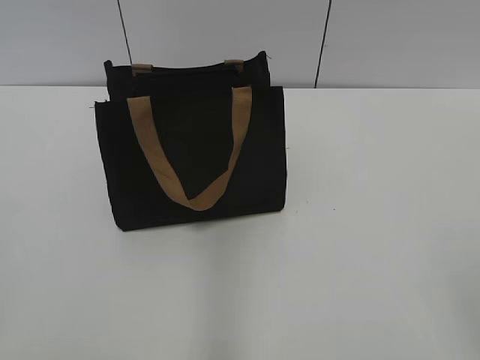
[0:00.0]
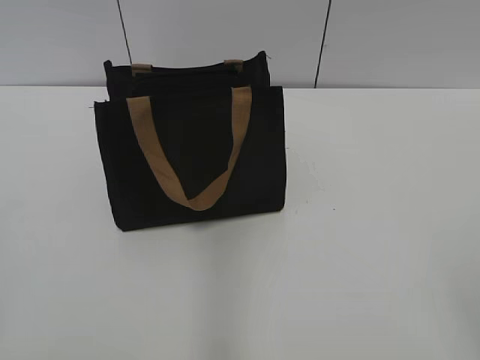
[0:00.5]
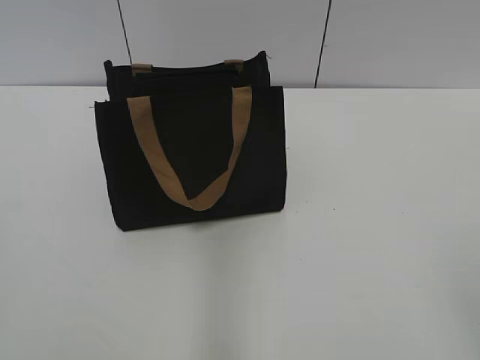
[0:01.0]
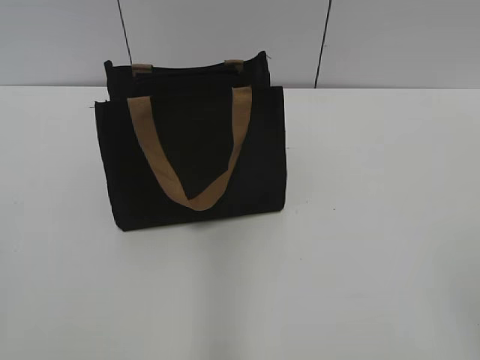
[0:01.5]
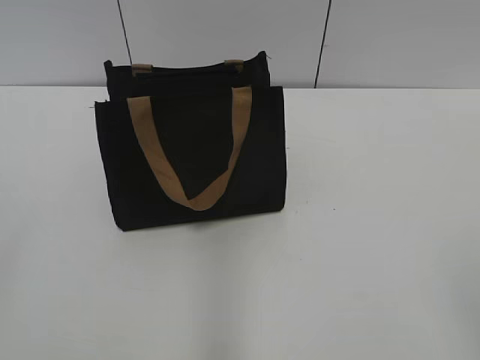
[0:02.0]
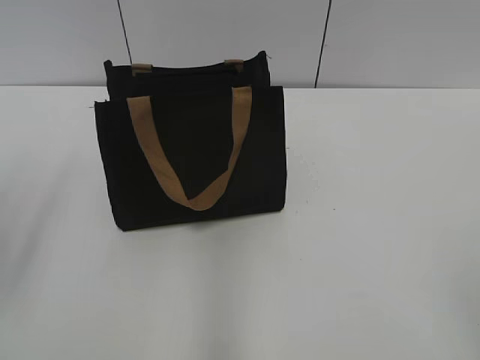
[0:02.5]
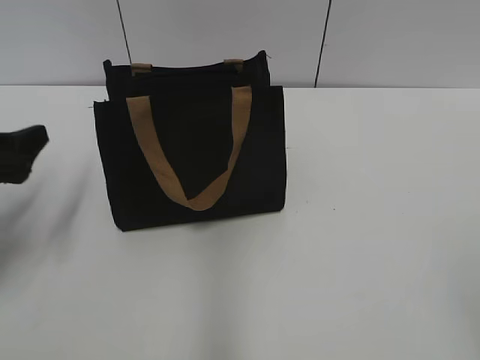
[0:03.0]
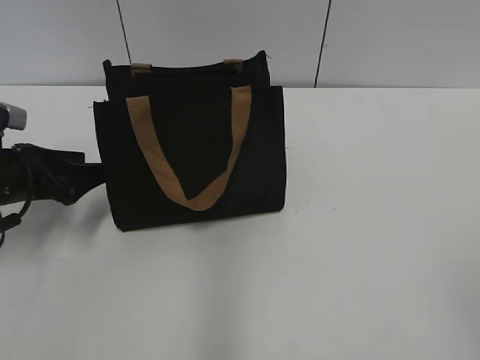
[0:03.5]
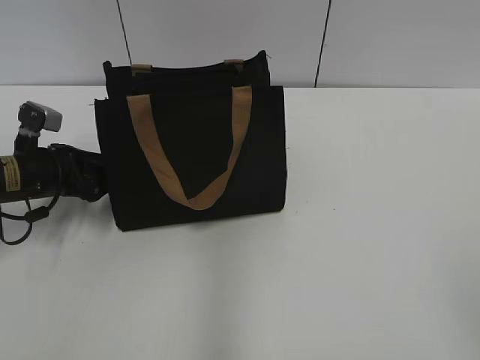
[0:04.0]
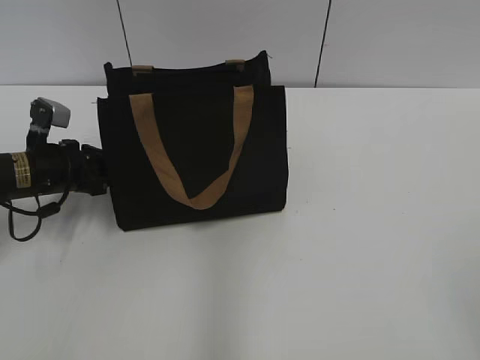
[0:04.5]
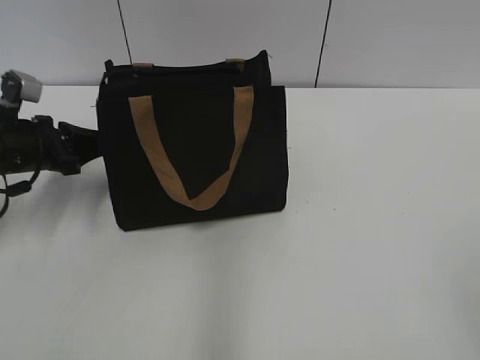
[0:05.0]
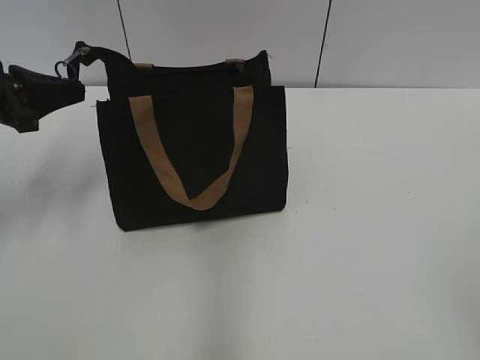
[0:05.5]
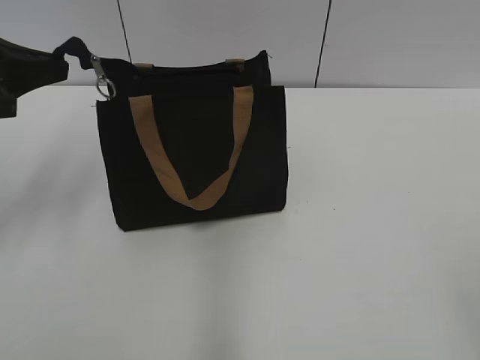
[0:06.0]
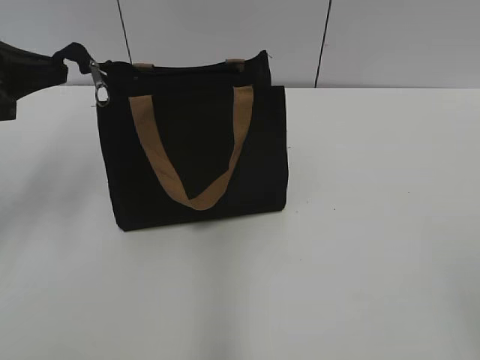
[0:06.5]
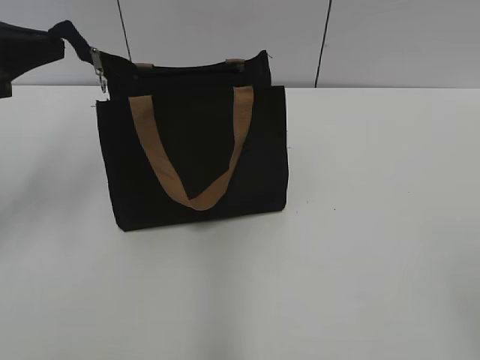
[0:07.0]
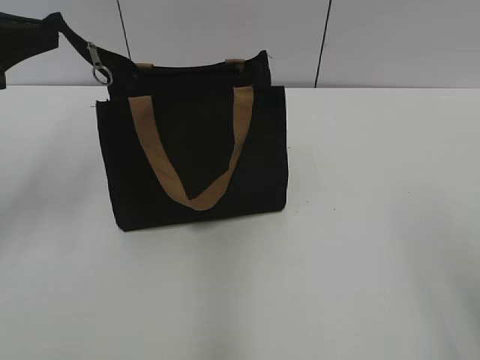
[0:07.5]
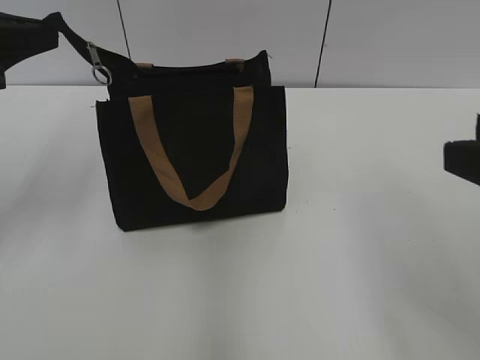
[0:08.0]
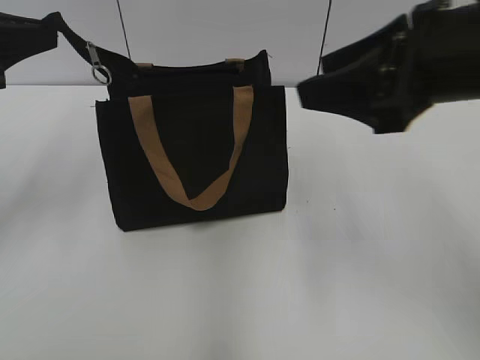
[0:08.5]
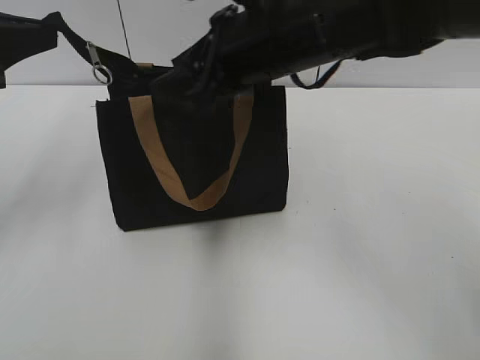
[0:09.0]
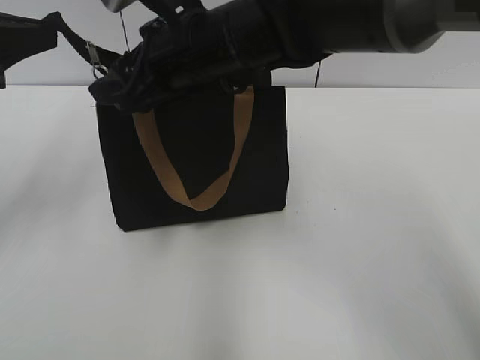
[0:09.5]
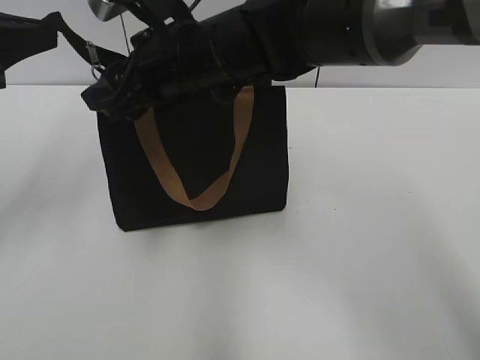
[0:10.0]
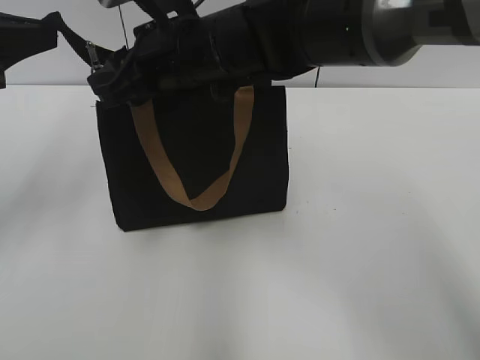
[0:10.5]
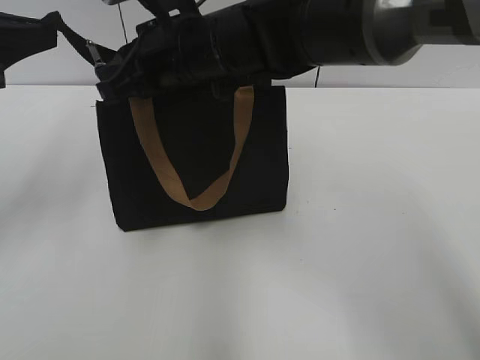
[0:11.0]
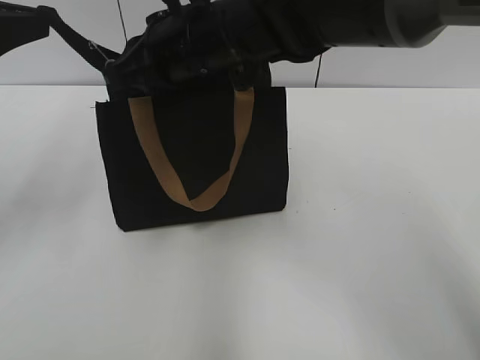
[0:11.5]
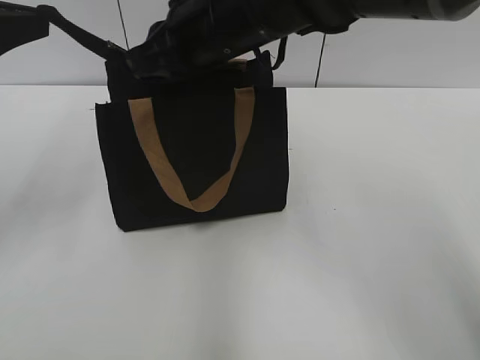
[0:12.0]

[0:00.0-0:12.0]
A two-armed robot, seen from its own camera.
0:02.0 to 0:04.0: The left gripper goes roughly 40 cm forward and downward.
0:04.0 to 0:06.0: The left gripper travels upward by some 15 cm, and closes.
0:06.0 to 0:08.0: The right gripper is displaced forward by some 15 cm.
0:08.0 to 0:10.0: The right gripper heads to the left and forward, covering some 35 cm.
0:10.0 to 0:12.0: The right gripper closes.

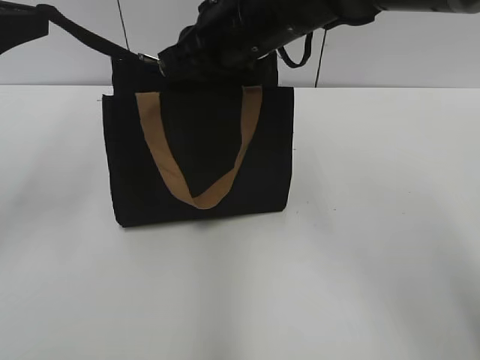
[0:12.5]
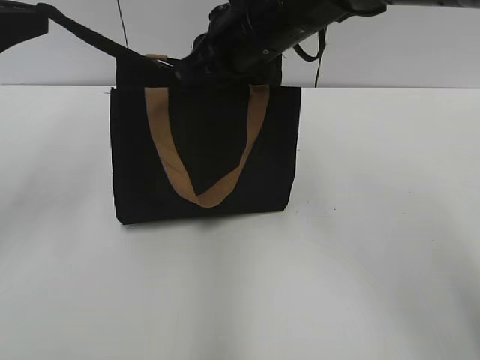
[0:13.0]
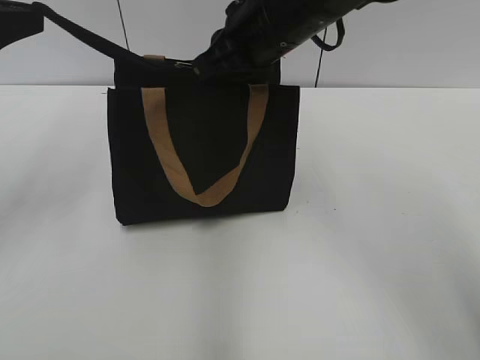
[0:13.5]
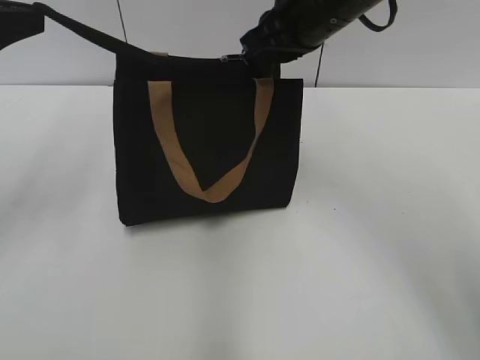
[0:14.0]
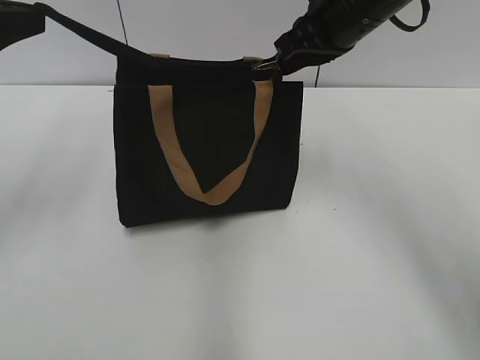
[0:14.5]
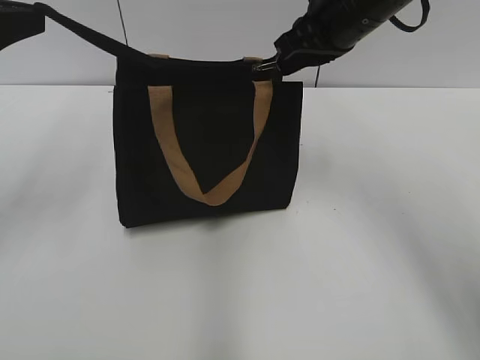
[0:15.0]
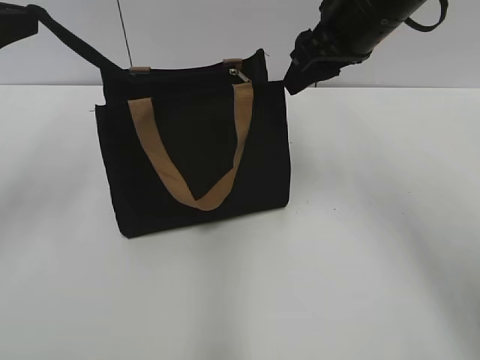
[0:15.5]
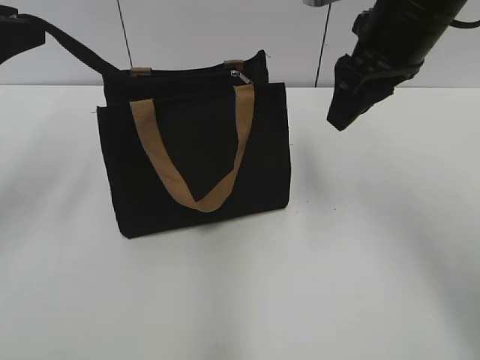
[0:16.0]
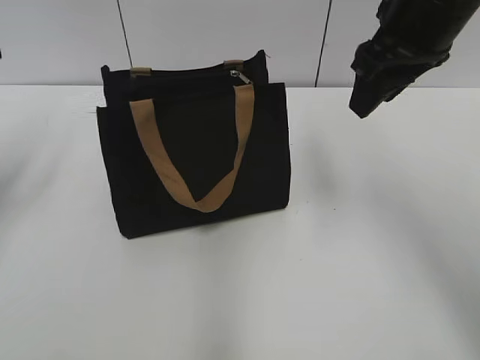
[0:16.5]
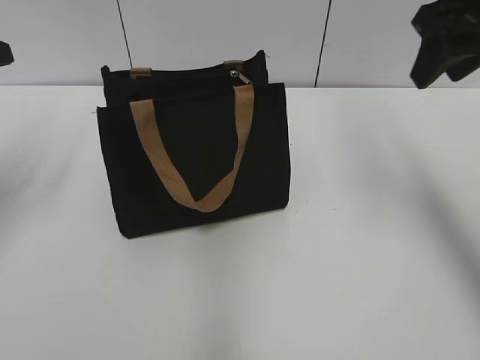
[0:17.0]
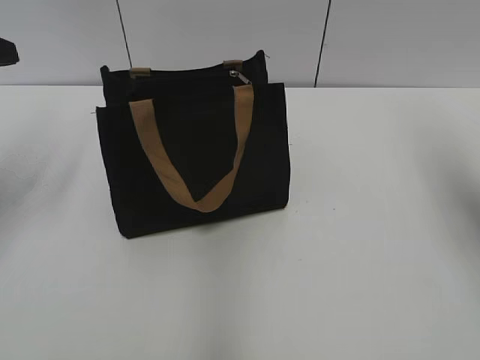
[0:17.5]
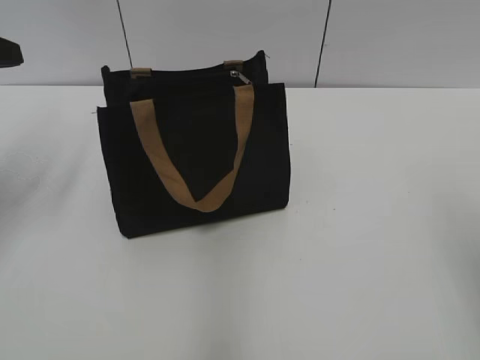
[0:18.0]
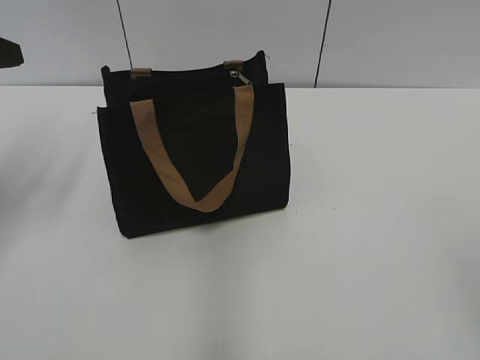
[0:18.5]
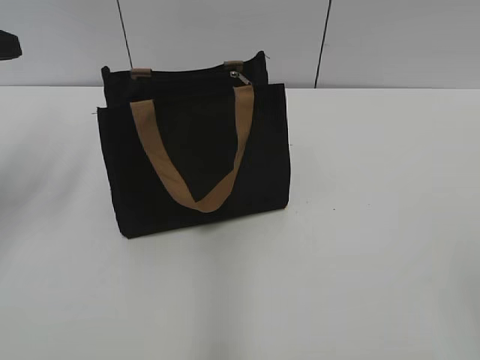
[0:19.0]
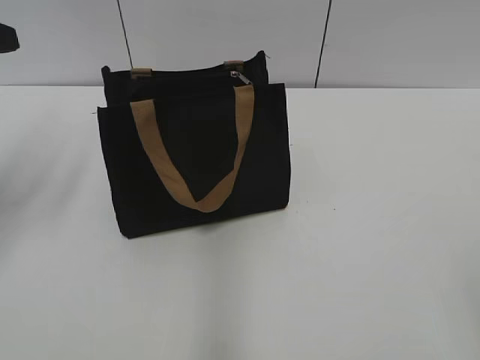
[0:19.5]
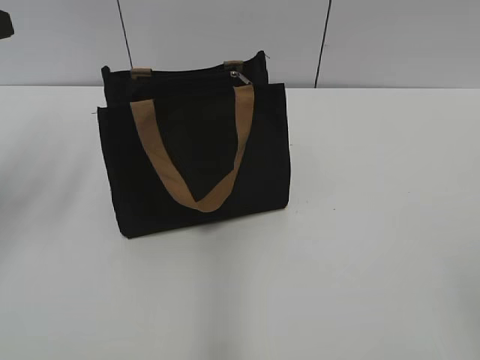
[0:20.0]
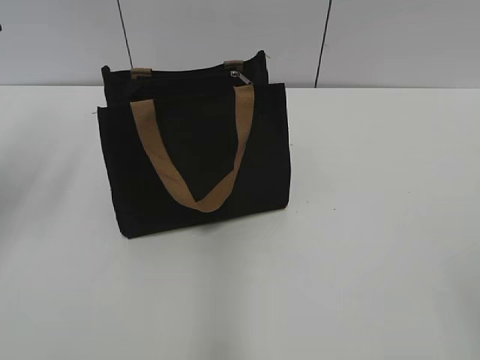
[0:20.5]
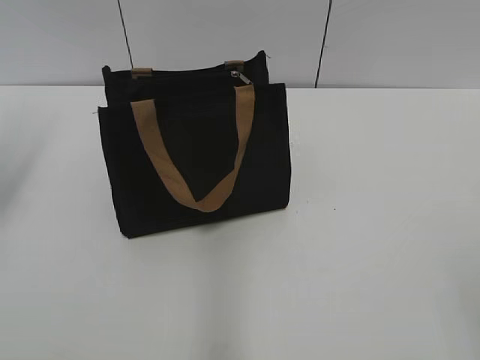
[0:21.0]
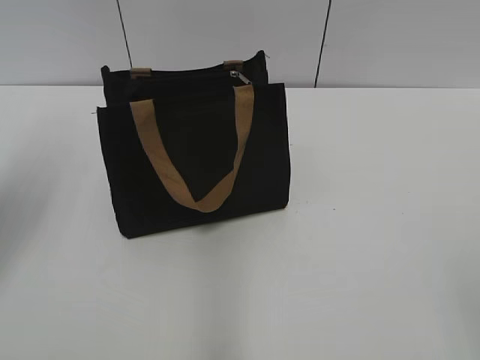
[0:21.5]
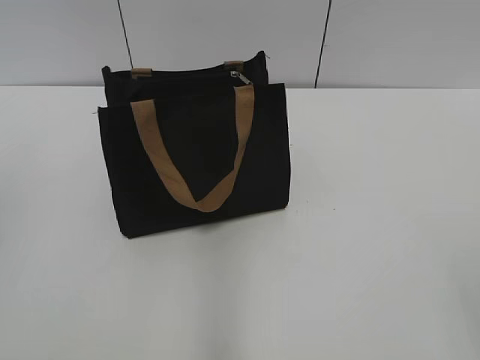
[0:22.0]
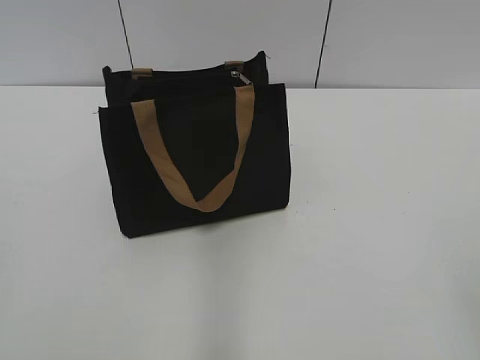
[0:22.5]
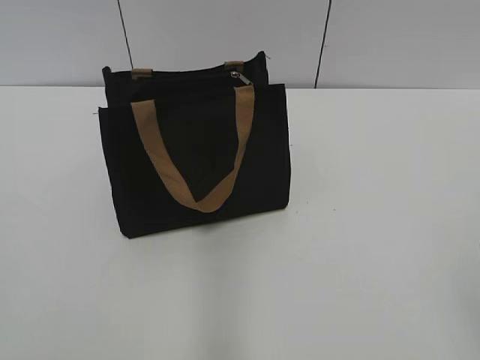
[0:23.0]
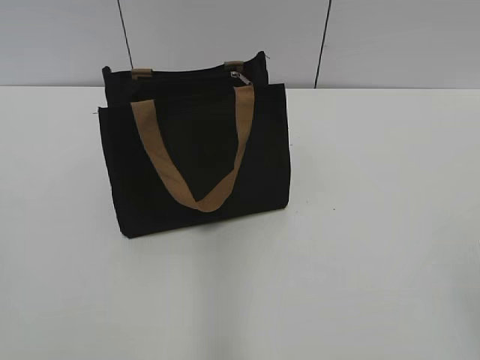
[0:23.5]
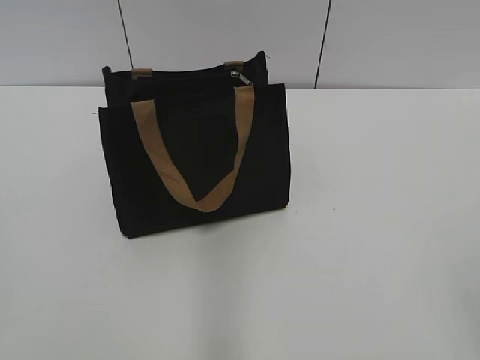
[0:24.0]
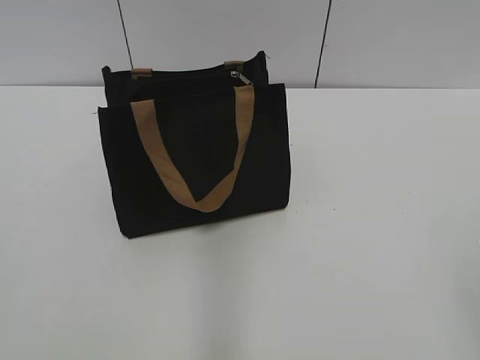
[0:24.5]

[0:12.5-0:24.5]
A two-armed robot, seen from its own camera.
Step, 0:12.5 to 0:15.0: Zip up the bag with your right hand.
Step, 0:15.5 to 0:16.5: Grab the zipper with your left hand.
0:12.5 to 0:14.5: The right gripper travels to the right by about 10 cm.
0:14.5 to 0:16.5: The left gripper opens its fingers, while the right gripper goes about 5 cm backward, and opens up.
0:16.5 to 0:18.5: The right gripper travels backward and to the right by approximately 35 cm.
0:20.5 to 0:22.5: The left gripper moves backward, about 25 cm.

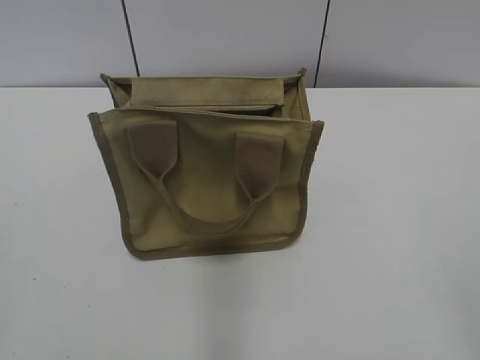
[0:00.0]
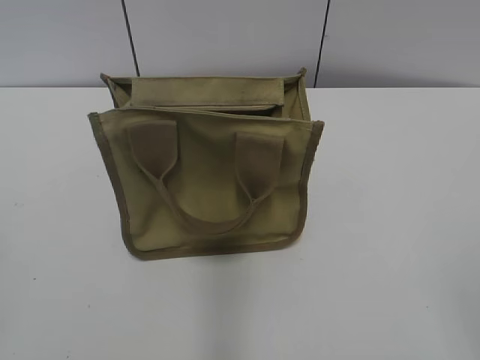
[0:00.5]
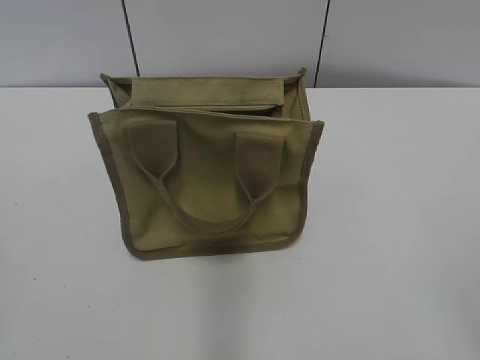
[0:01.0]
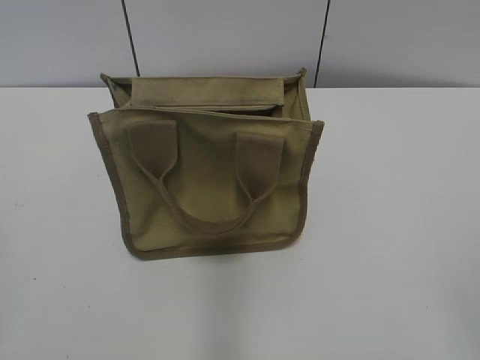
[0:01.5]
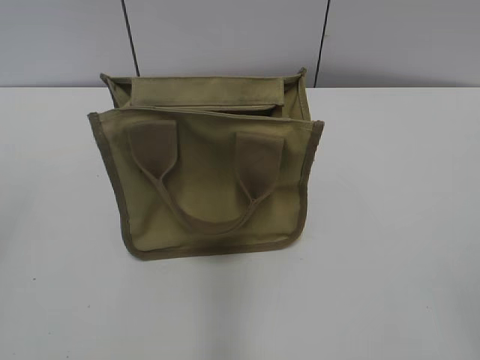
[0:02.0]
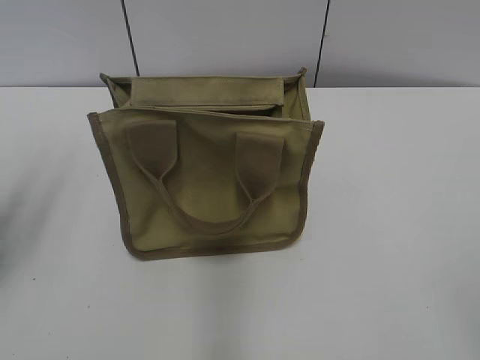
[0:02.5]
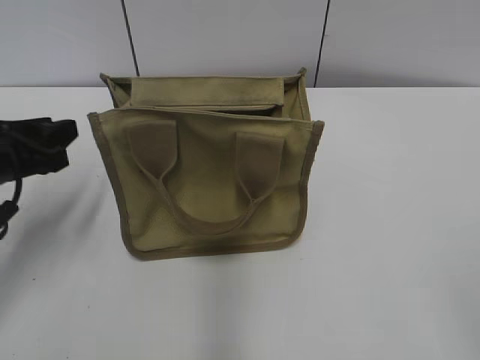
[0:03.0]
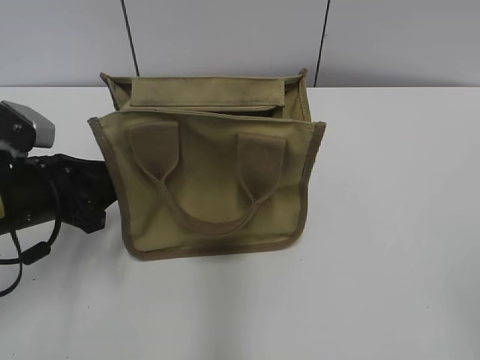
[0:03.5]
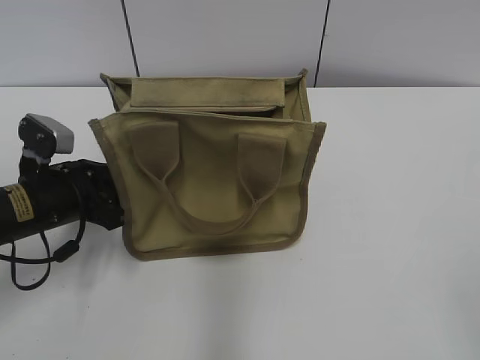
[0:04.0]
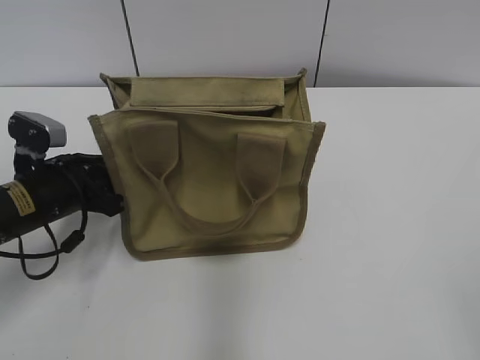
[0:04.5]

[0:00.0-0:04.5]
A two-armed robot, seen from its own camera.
0:02.0 to 0:04.5: The left gripper moves downward and forward, some 35 cm, and closes.
